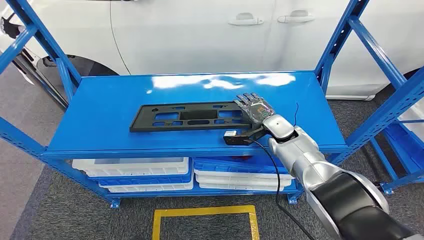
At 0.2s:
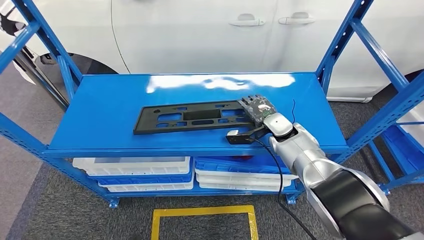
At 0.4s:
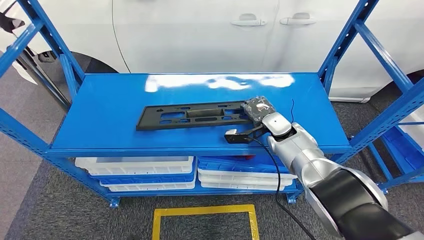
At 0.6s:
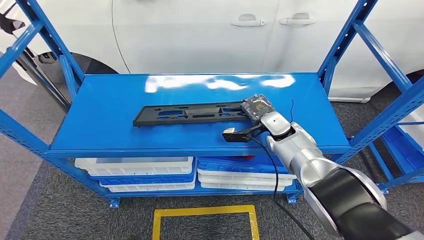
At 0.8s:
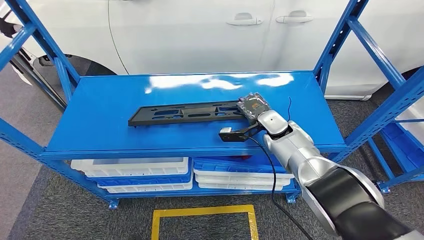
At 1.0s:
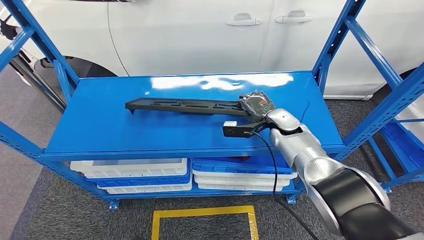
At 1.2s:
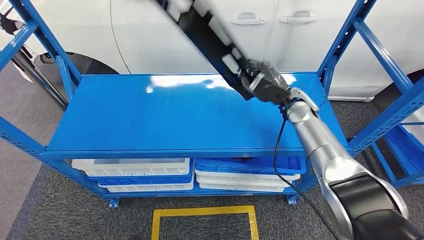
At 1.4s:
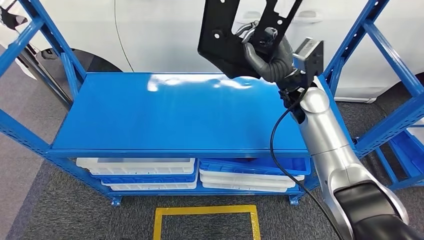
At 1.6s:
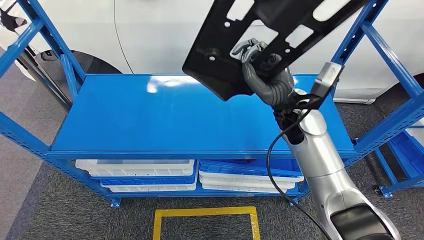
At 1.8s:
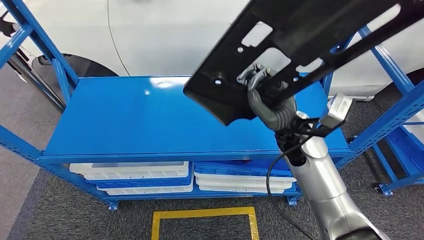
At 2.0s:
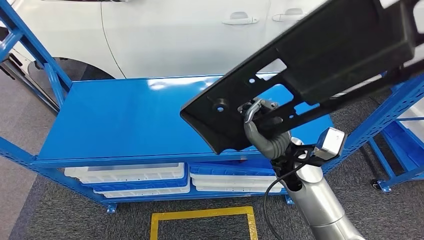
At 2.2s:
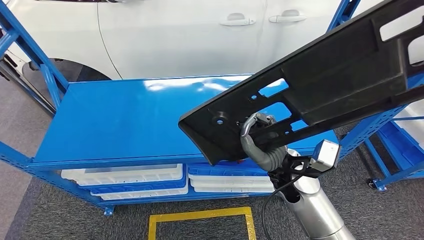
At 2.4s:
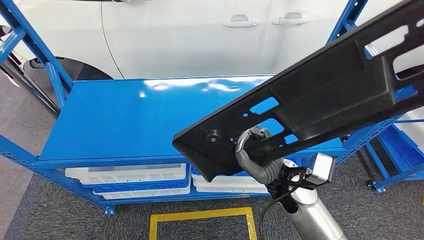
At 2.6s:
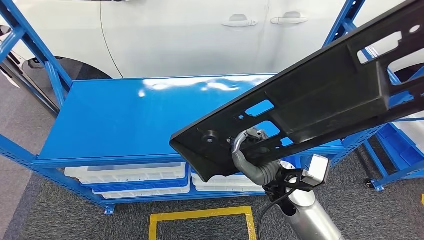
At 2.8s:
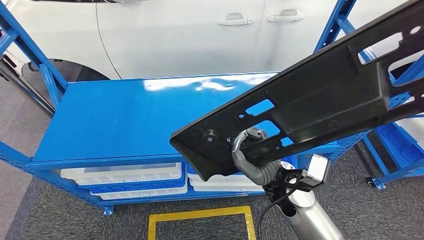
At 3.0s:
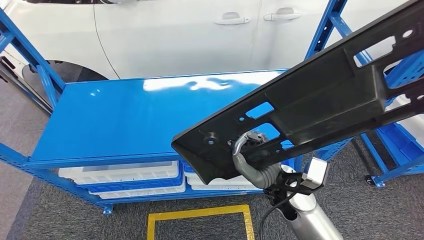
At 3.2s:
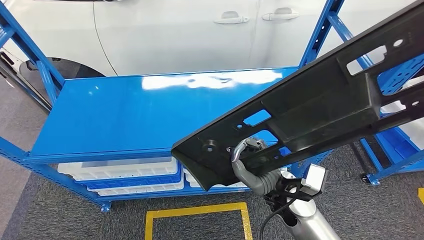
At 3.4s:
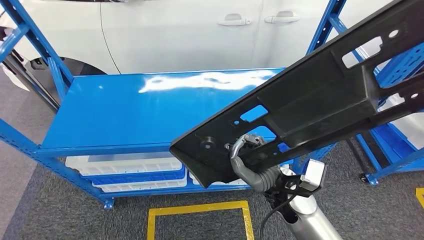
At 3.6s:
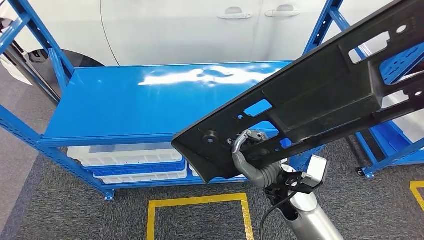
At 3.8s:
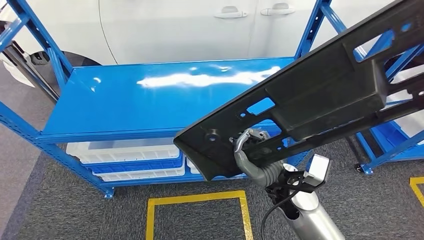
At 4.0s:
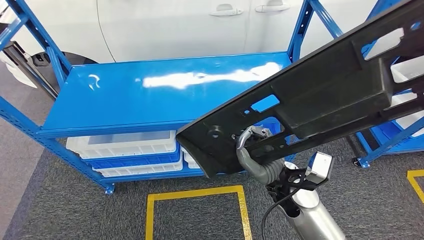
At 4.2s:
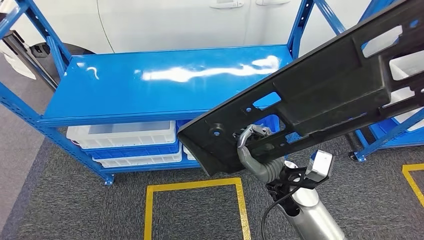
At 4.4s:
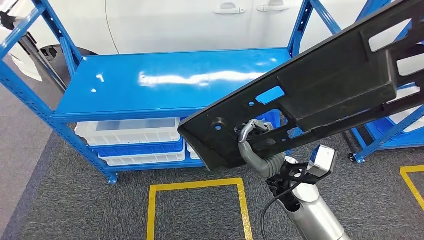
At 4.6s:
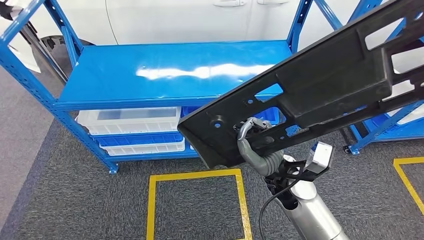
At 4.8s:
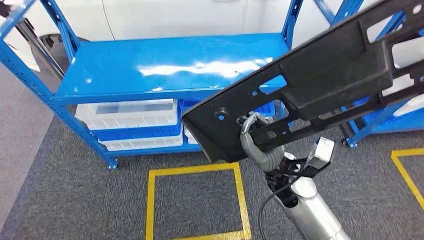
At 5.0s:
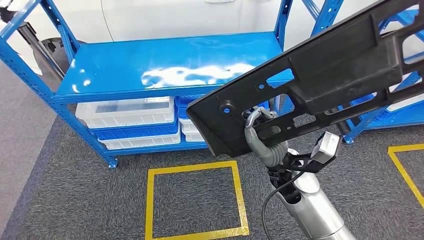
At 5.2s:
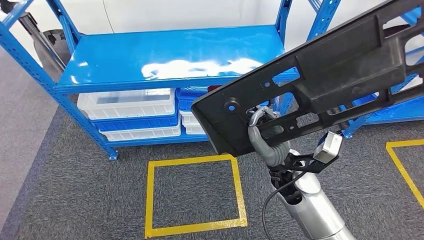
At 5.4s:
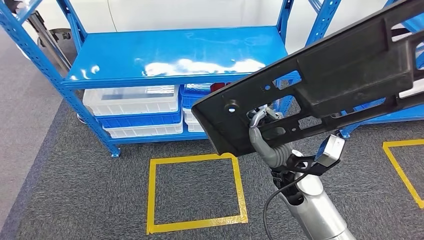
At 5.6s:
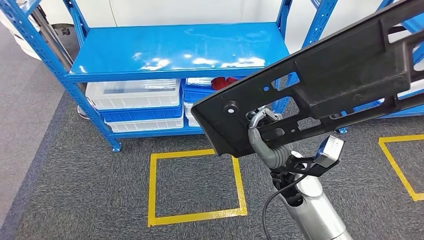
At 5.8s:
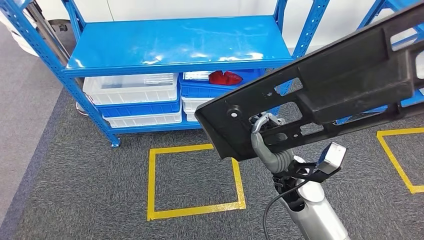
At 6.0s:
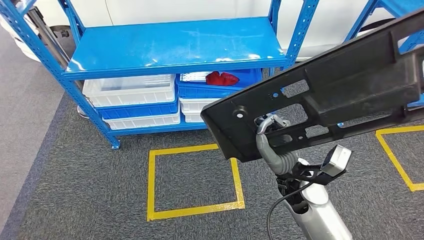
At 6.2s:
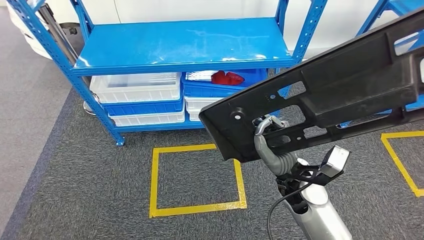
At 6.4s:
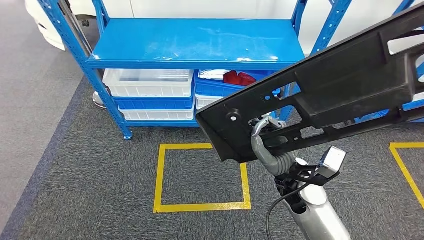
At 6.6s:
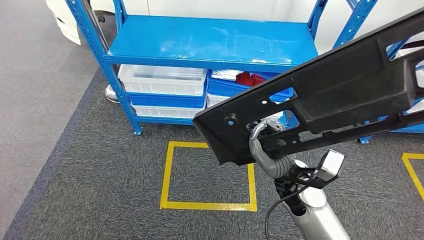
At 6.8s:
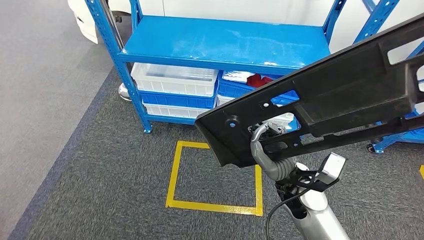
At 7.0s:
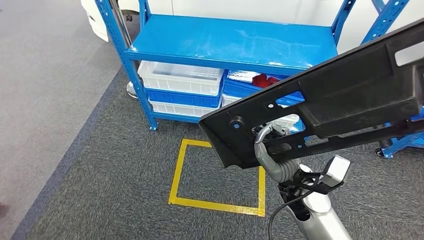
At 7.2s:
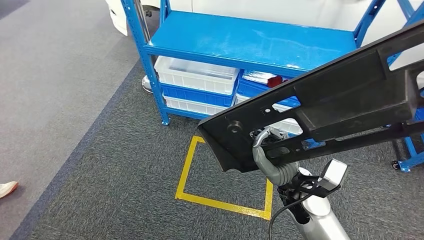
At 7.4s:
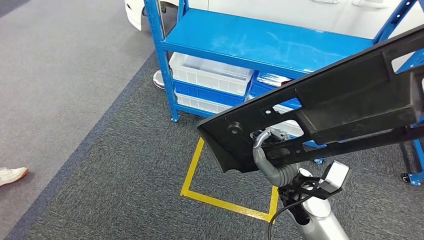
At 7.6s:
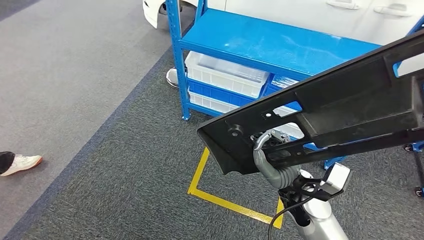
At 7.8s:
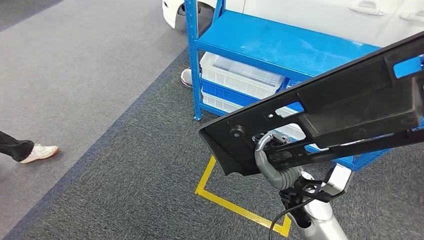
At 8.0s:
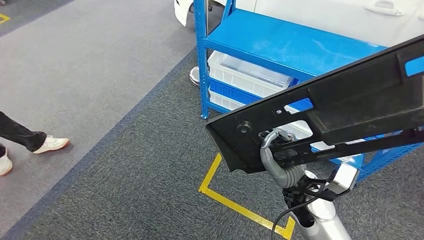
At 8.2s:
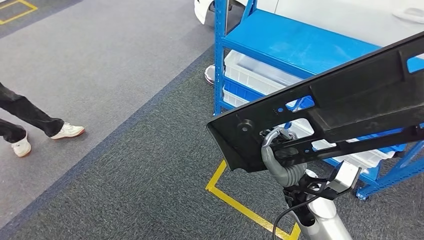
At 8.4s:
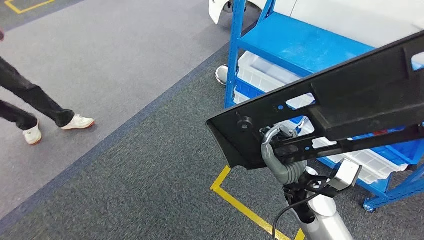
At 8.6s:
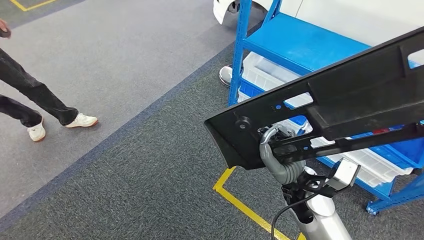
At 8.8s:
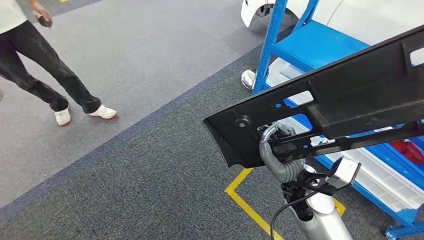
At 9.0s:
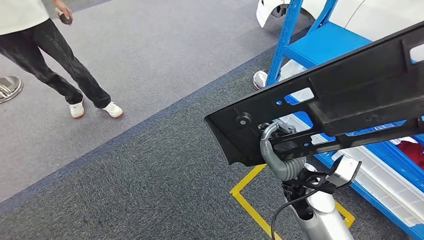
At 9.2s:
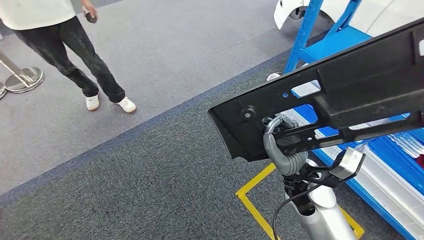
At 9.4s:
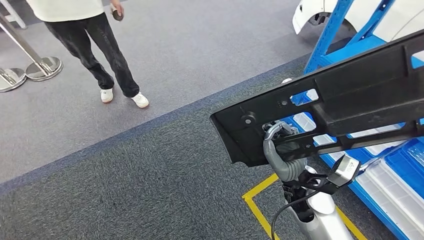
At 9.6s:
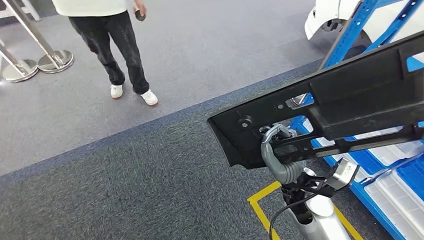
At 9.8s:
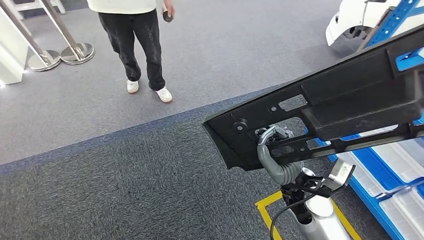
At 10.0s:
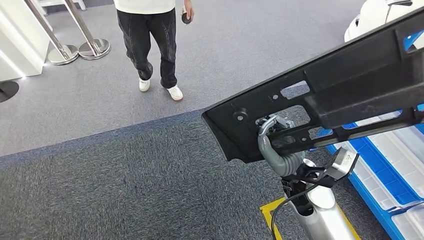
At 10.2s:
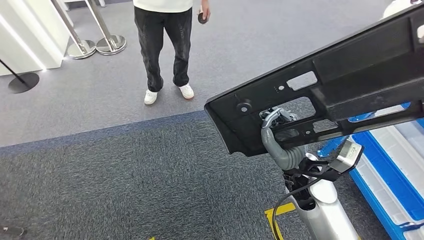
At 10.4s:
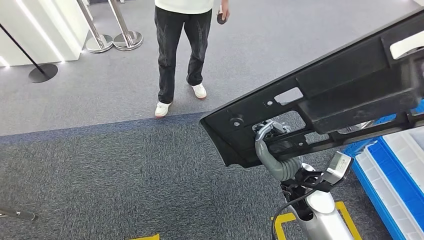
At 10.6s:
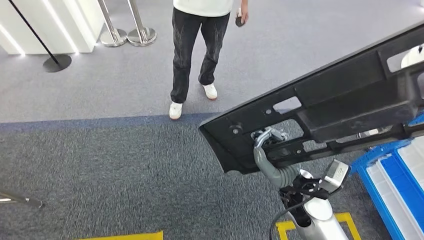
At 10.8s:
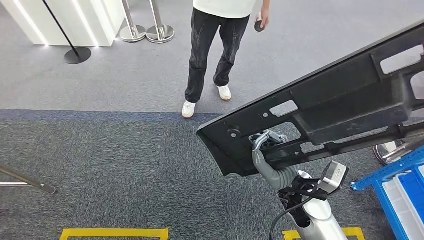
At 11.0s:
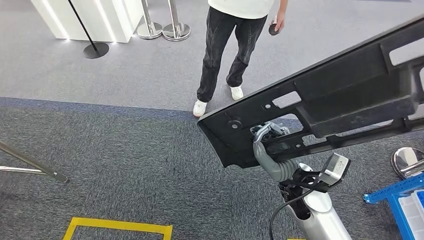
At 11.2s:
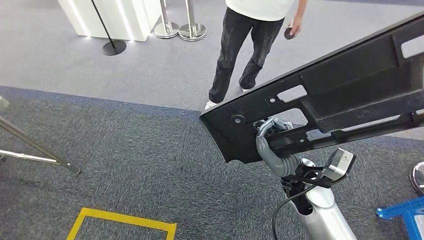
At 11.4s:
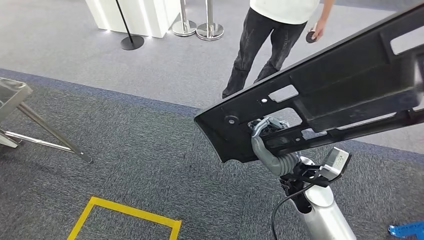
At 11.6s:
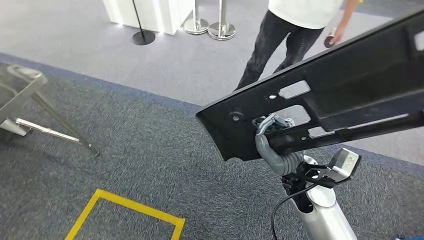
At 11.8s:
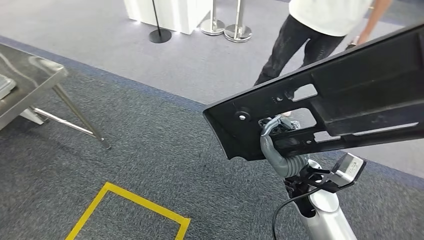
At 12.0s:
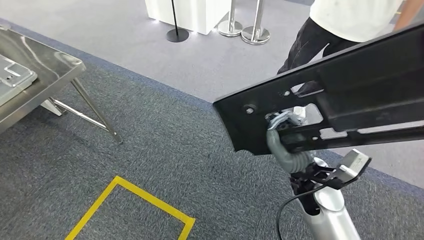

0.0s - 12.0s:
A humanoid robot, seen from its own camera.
Step, 0.0s - 3.8s: Pick up the large material from the shelf.

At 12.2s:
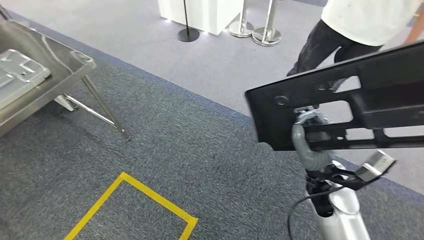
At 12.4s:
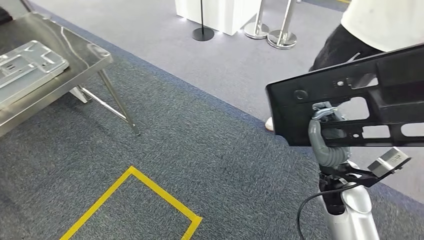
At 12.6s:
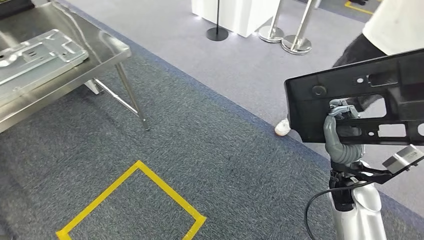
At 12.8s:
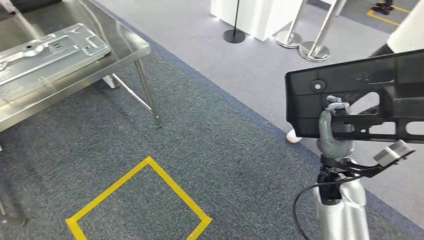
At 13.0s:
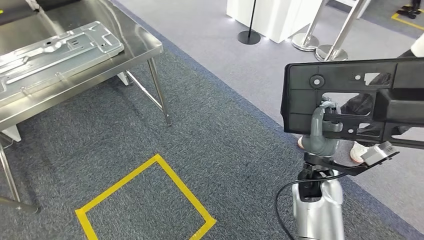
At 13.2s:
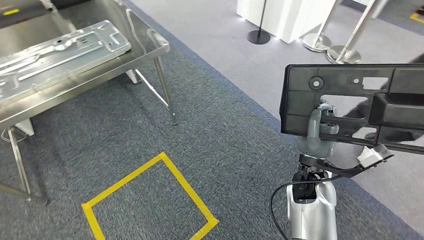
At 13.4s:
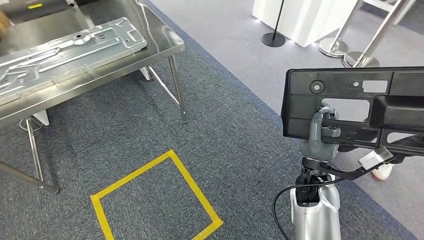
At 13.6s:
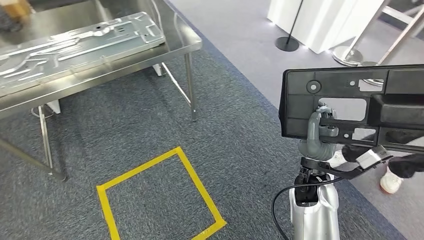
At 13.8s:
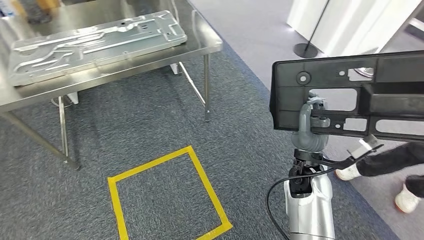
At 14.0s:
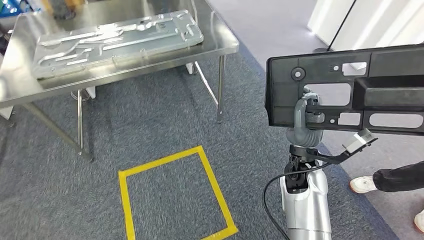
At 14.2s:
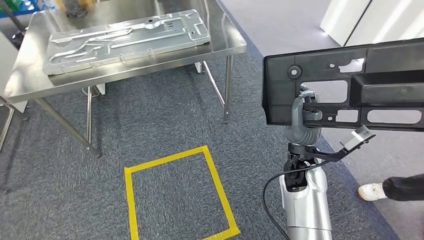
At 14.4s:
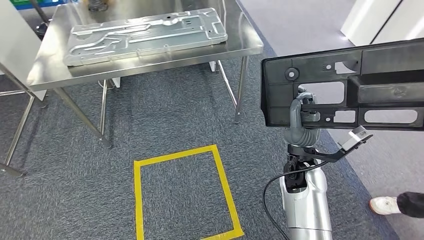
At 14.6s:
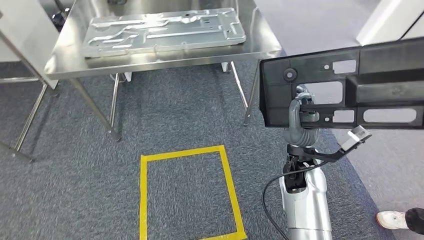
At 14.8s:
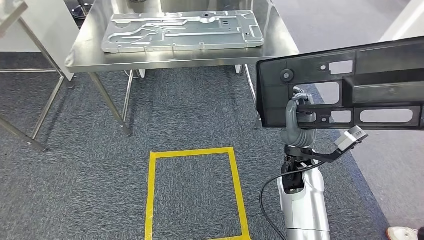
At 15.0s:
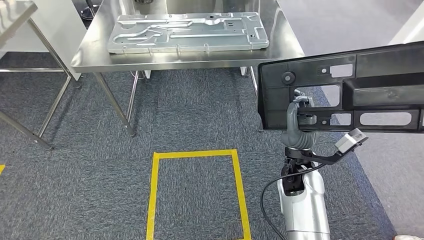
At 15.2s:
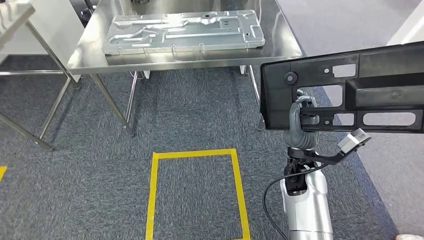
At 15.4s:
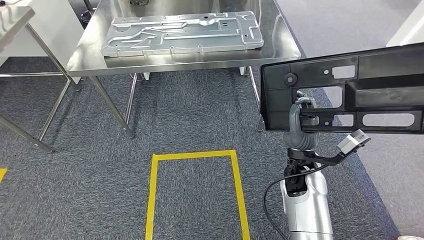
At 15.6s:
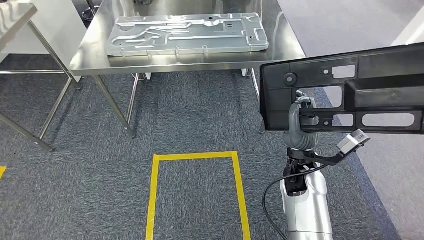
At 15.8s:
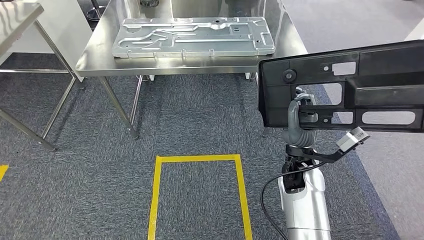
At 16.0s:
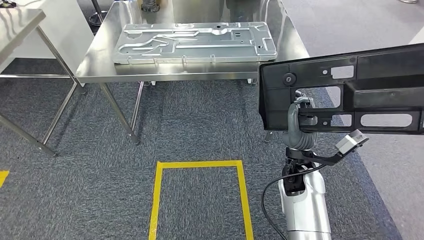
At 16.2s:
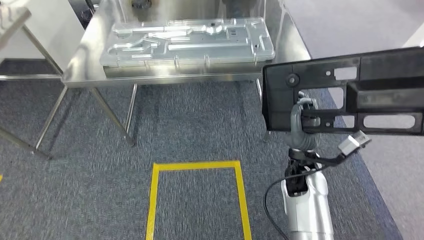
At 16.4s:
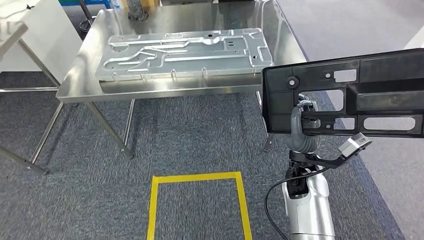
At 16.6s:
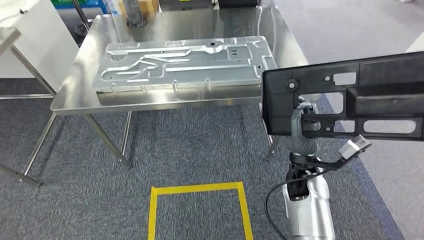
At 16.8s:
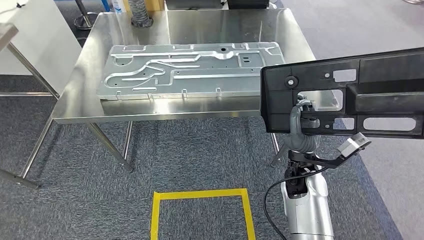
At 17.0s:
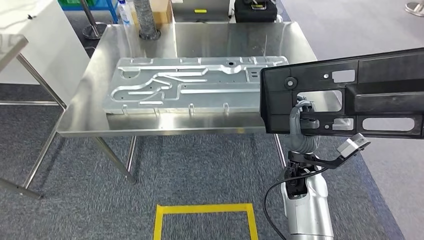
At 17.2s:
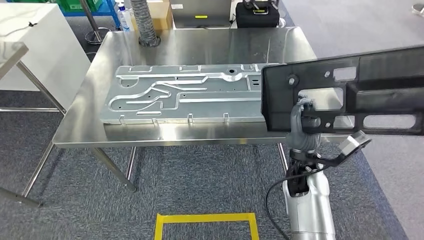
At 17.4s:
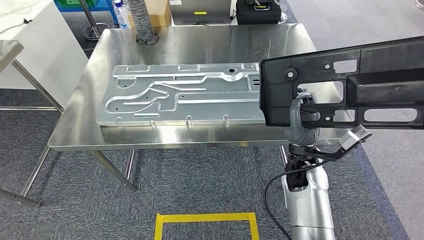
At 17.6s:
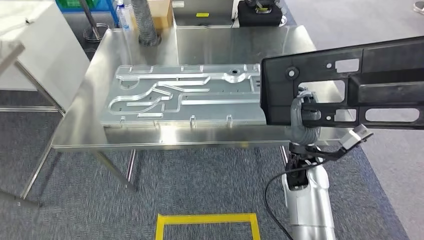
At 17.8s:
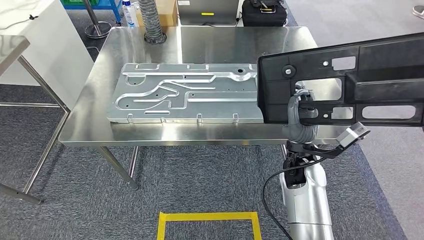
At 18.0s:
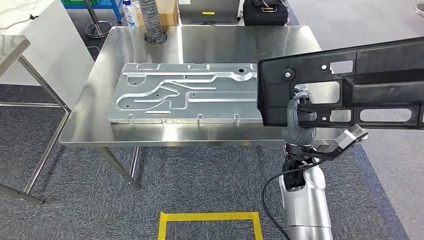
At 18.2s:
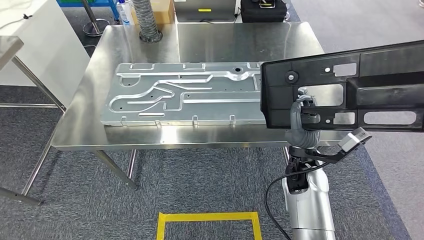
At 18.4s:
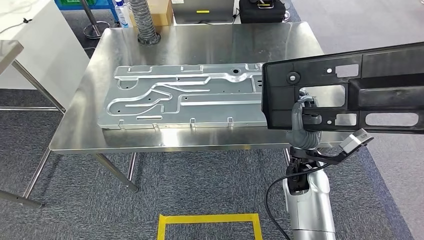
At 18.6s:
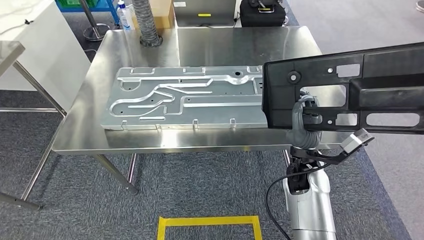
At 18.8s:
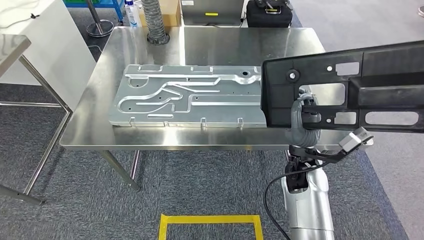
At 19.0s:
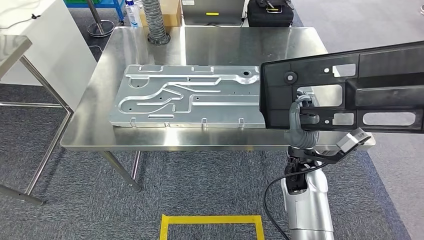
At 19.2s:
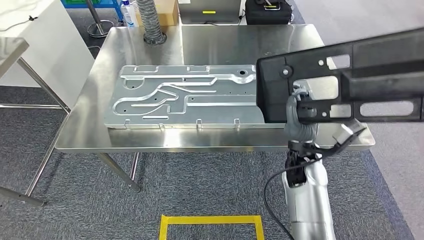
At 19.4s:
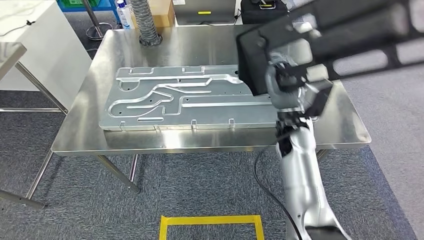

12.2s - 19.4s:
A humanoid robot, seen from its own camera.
Step, 12.2s - 18.0s: Move the large material to the workbench.
